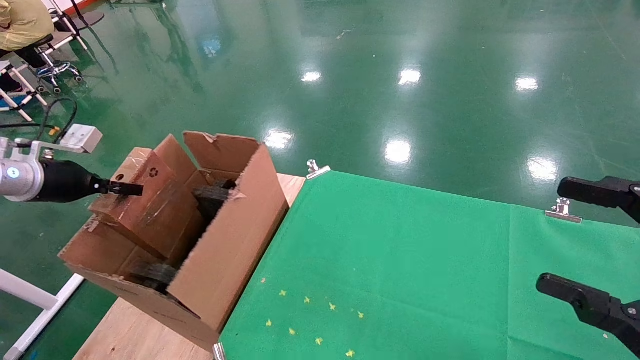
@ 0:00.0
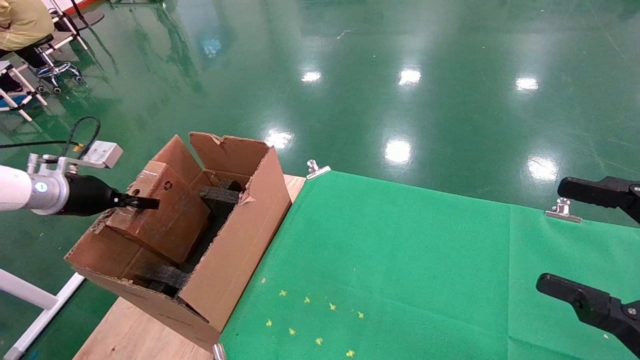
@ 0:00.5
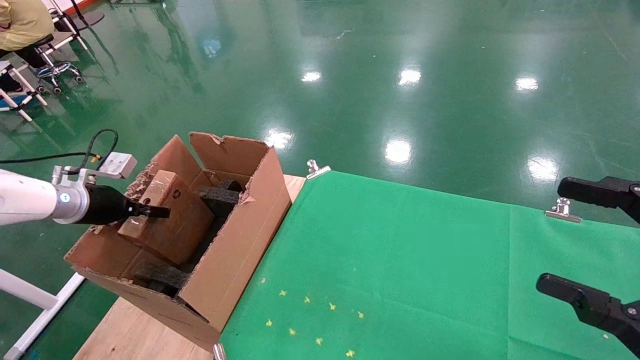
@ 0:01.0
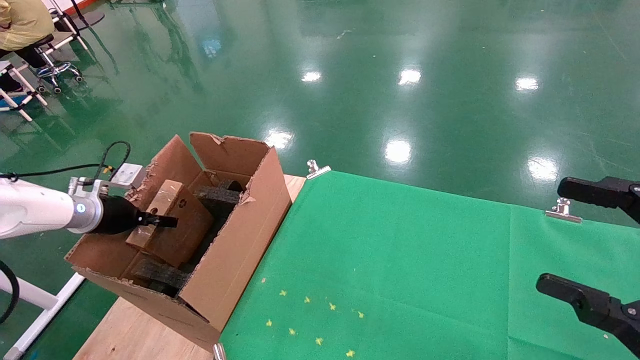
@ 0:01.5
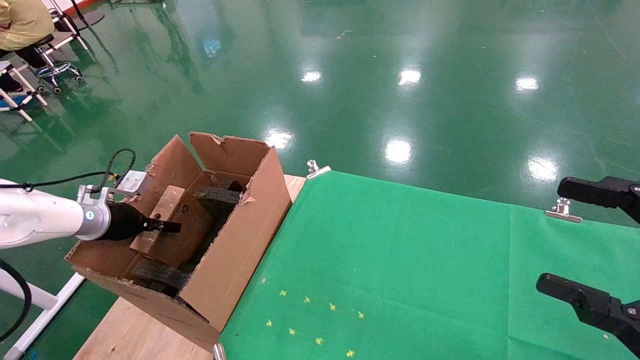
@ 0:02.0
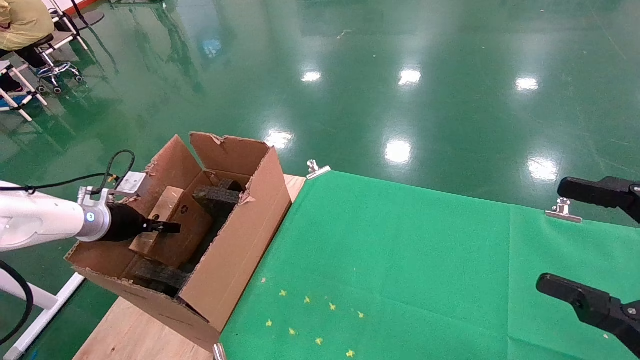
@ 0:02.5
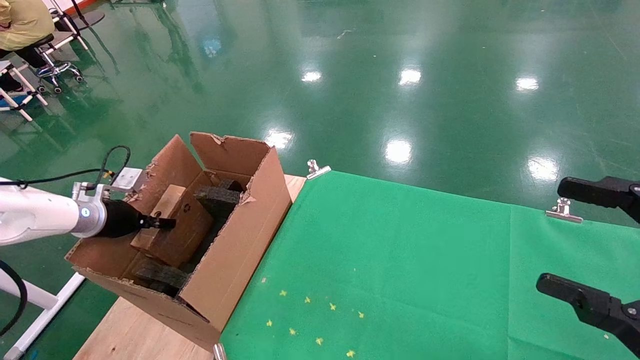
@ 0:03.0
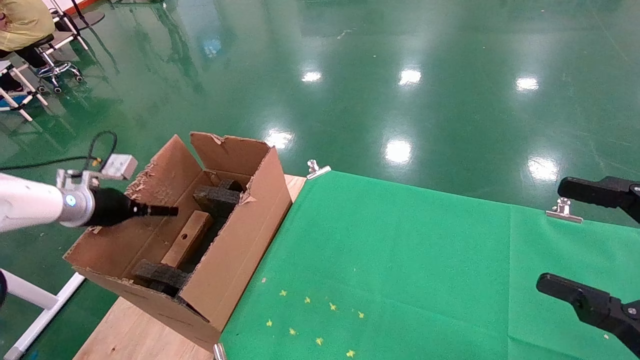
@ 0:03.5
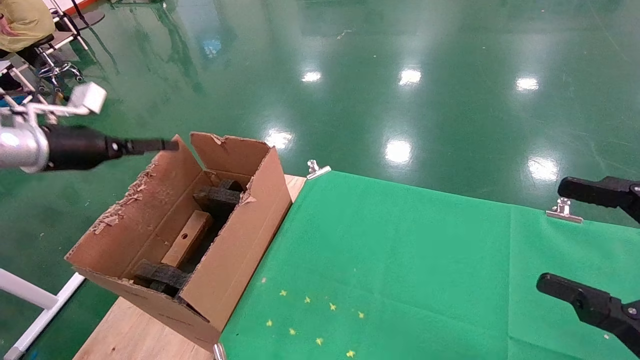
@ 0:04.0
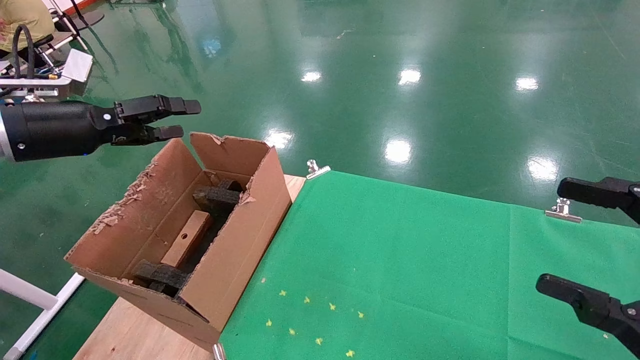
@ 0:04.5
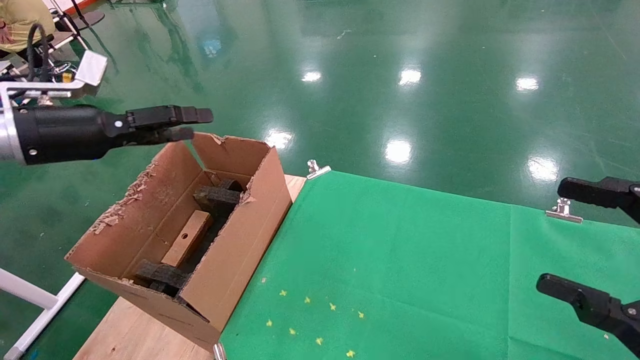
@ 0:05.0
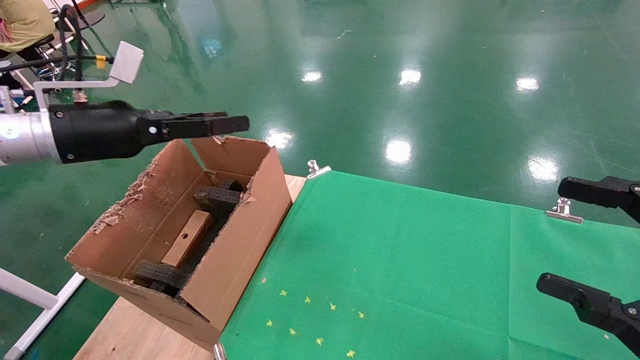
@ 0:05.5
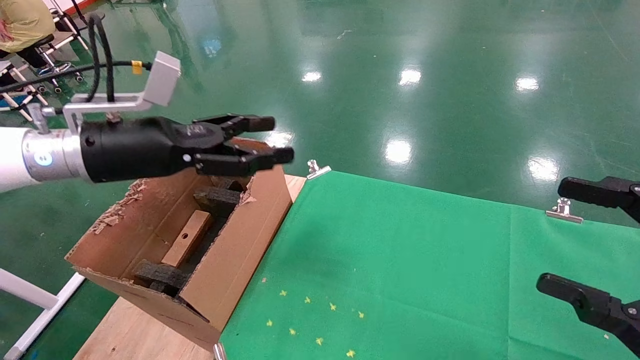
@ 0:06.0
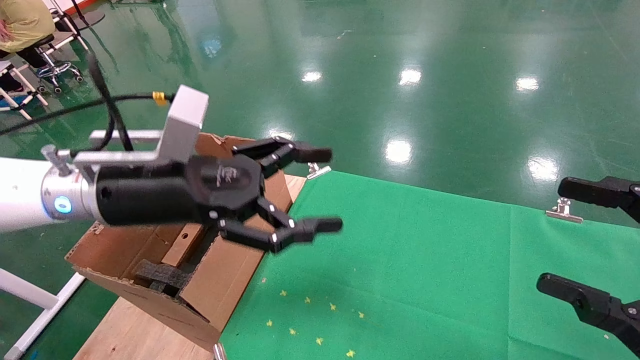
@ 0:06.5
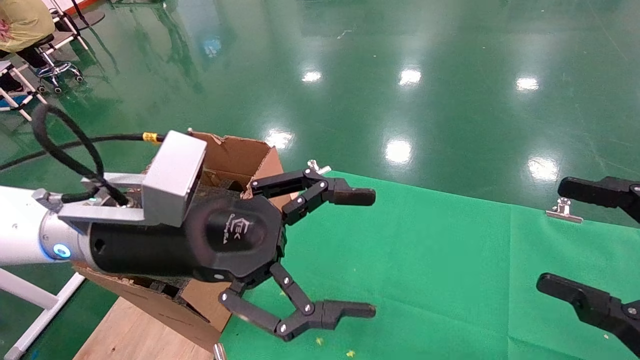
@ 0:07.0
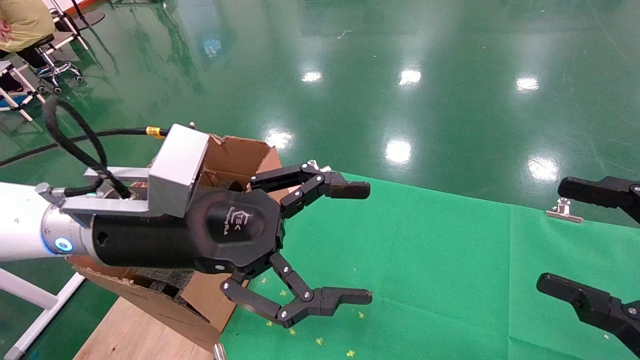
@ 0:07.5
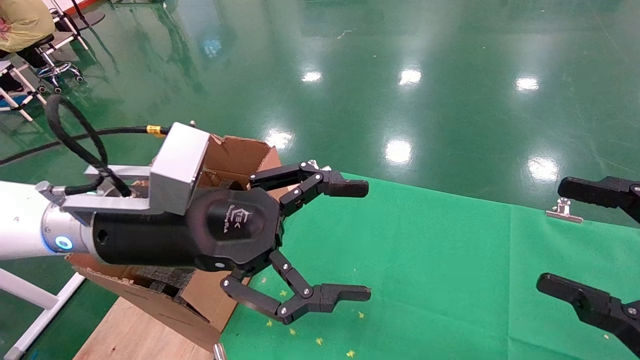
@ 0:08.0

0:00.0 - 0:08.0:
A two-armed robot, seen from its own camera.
Task of the whole recording: using a robotic arm to pick up a cardboard box and palace it the carton.
Step, 0:00.0 - 0:04.0: Place the mouse and the power cord paper box into the container.
0:00.0 - 0:02.0: The left gripper shifts roughly 10 cm downward and forward.
0:02.0 - 0:04.0: The left gripper goes roughly 15 cm upward, and opens its fingers.
0:04.0 - 0:06.0: The left gripper is displaced to the right by approximately 20 cm.
0:06.0 - 0:08.0: The left gripper goes about 10 cm to the right and backward.
